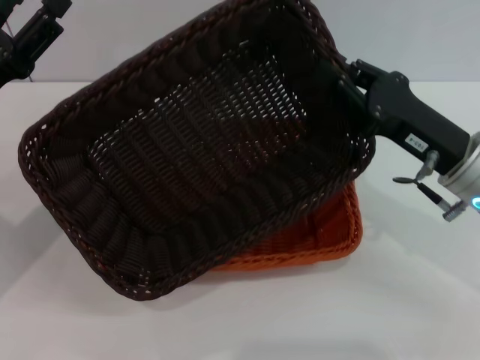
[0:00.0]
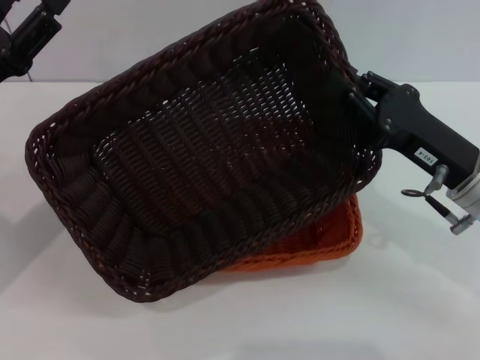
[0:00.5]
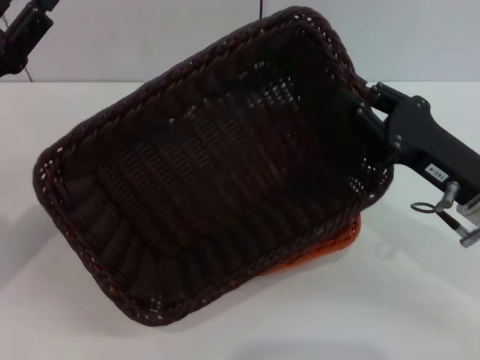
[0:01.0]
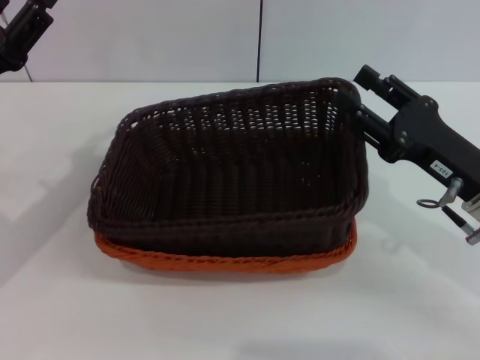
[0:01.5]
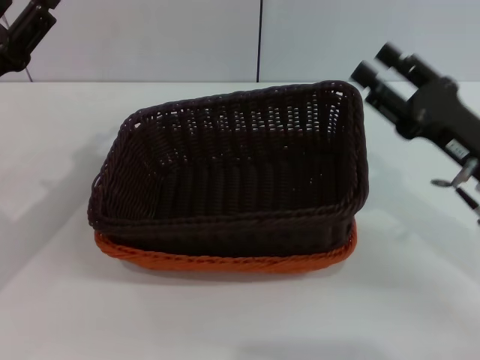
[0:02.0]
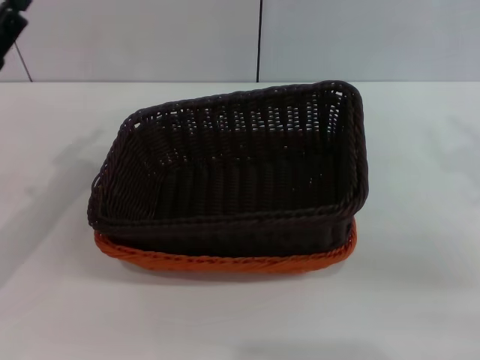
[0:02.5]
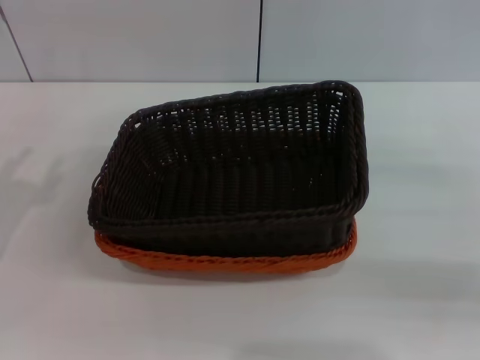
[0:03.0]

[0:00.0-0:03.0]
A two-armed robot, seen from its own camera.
0:00.0 to 0:01.5: The right gripper opens.
0:01.5 to 0:03.0: The left gripper goes some 5 cm backward; the right gripper moves to the right, approximately 15 cm.
